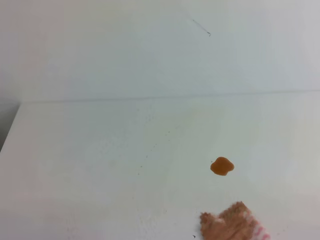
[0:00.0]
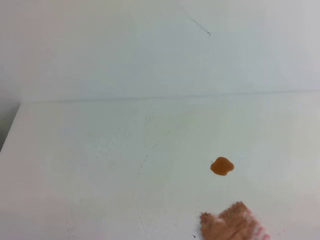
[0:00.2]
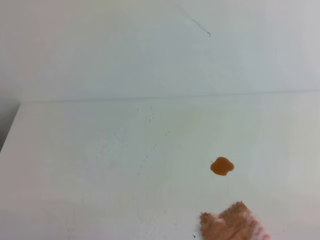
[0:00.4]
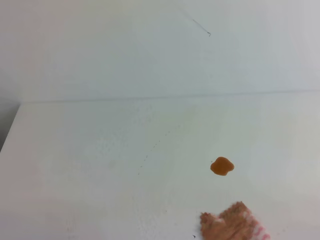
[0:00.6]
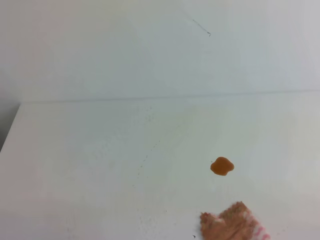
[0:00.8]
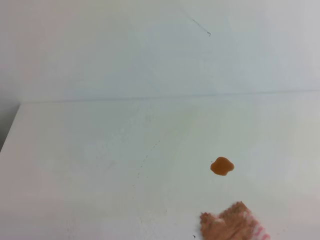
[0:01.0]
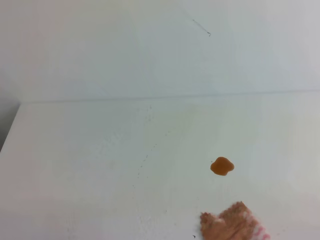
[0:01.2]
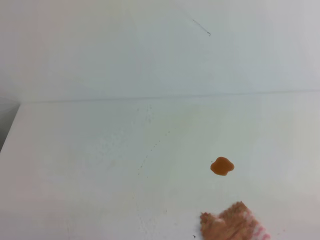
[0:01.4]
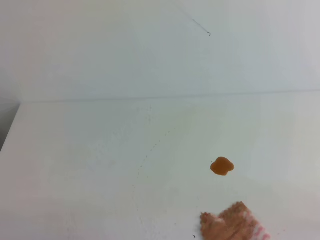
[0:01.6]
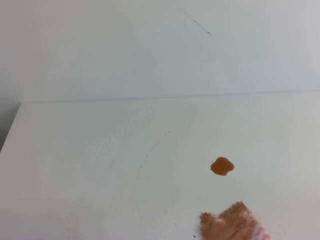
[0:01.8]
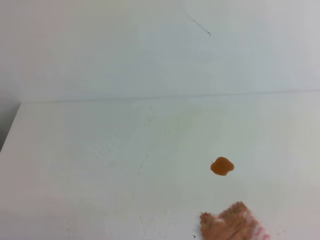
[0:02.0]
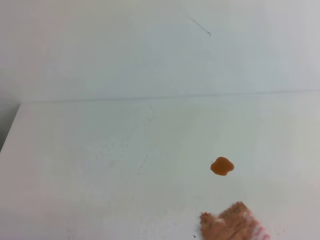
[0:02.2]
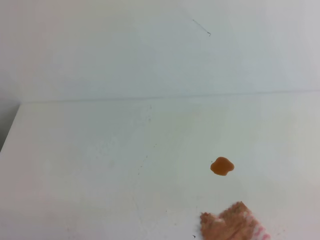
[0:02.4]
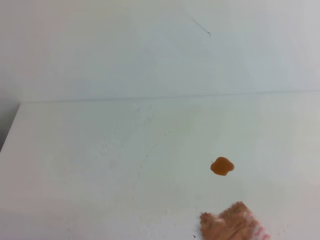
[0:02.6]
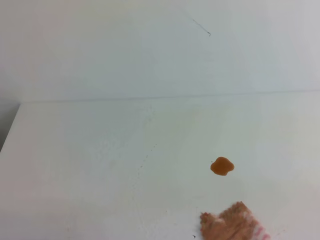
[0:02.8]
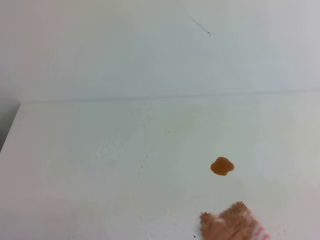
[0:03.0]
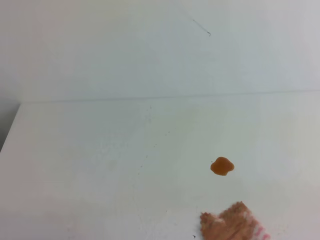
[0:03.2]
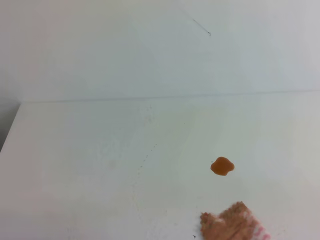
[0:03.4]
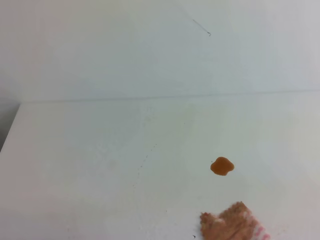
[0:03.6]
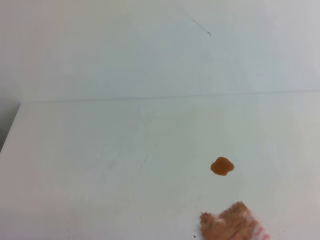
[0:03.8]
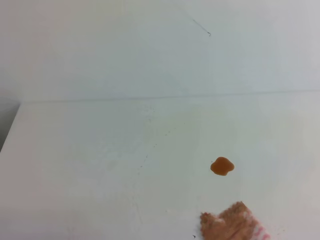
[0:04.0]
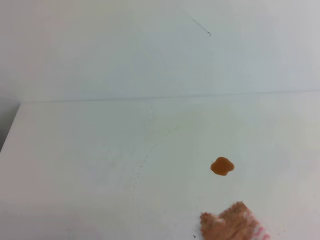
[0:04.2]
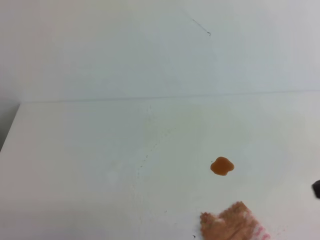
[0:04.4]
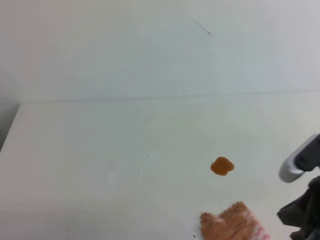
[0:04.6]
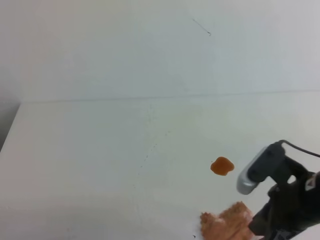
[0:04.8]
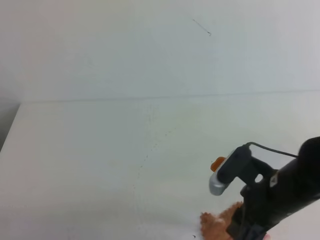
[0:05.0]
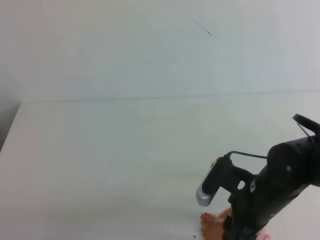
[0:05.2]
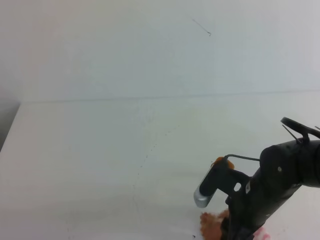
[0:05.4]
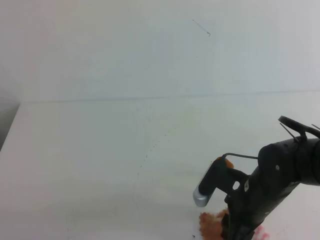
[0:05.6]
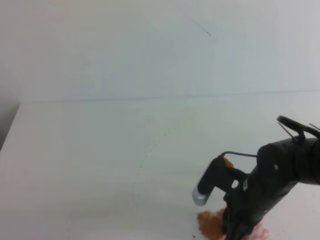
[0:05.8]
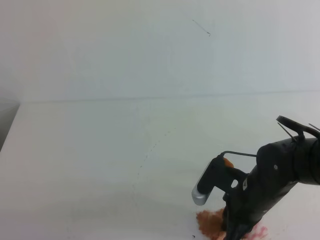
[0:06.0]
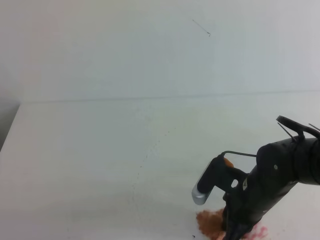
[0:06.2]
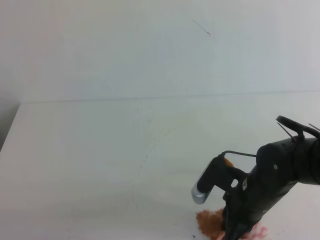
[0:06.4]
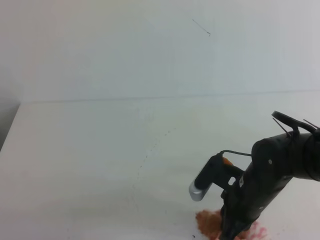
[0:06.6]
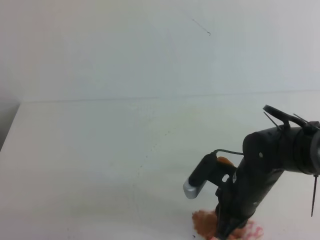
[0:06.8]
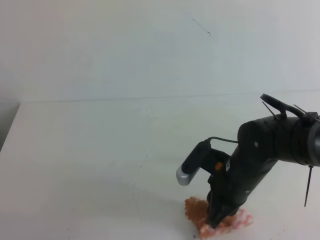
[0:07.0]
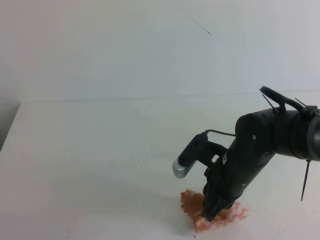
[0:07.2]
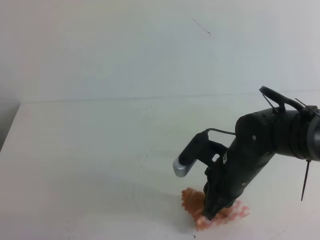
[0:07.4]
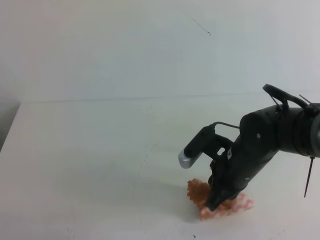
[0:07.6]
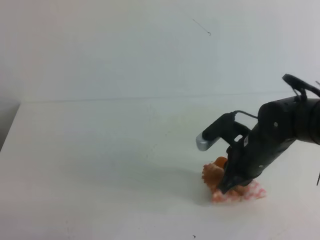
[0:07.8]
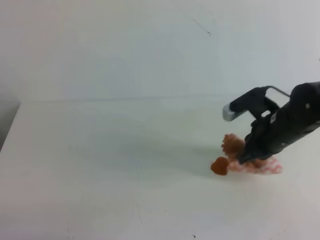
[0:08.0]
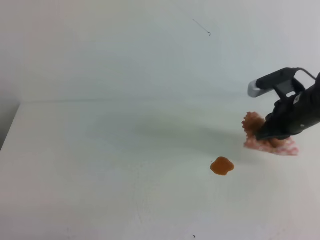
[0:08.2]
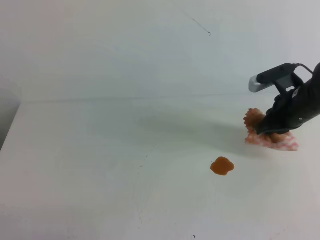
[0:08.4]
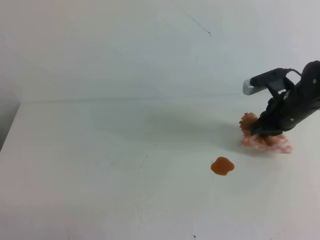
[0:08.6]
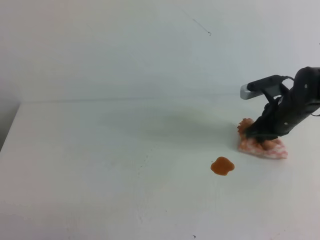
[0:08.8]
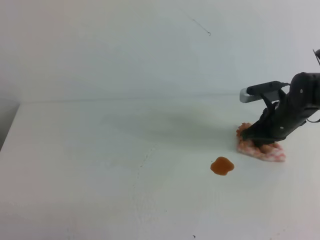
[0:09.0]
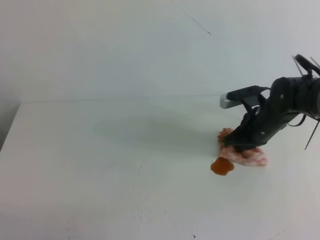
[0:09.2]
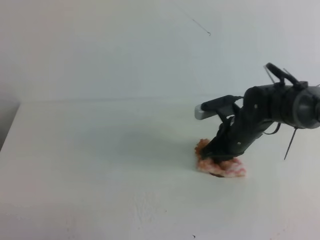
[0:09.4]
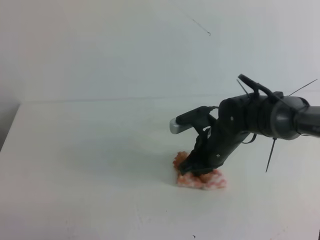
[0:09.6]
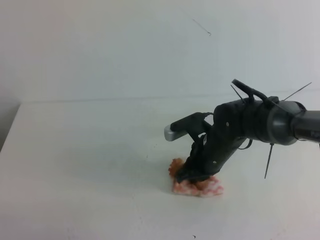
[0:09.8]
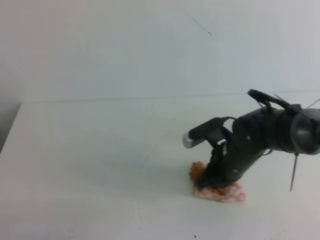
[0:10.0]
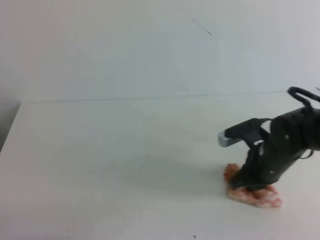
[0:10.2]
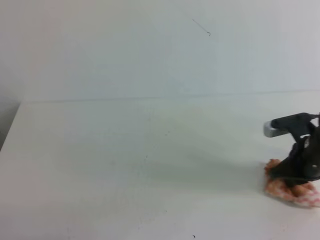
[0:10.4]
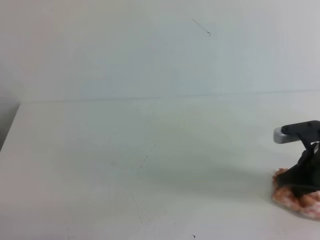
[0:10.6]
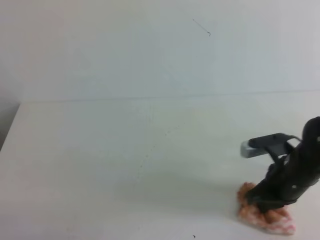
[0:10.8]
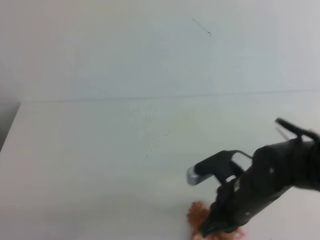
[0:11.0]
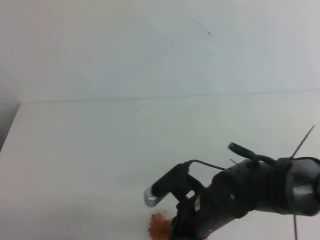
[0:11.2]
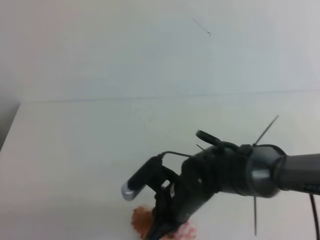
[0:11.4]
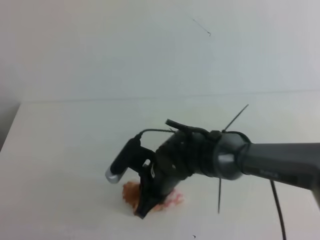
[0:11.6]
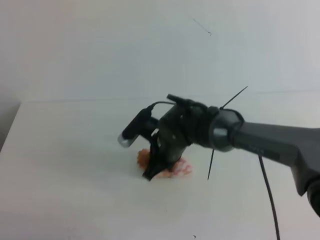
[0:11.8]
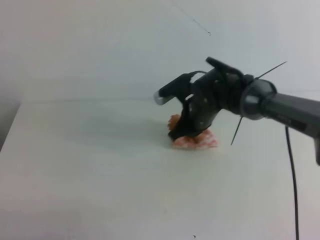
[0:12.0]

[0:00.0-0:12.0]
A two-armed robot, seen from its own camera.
0:04.4 to 0:06.0: The right gripper is displaced downward, to the left and forward by about 25 cm, and opens, then closes again.
0:06.0 to 0:07.6: The right gripper moves approximately 5 cm.
0:07.6 to 0:09.0: The right gripper moves forward and to the right, some 15 cm.
0:09.0 to 0:10.4: The right gripper travels backward by some 10 cm, and reaches about 15 cm to the left, then returns.
0:10.4 to 0:12.0: The right gripper moves to the left and forward, roughly 20 cm.

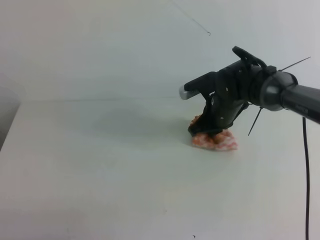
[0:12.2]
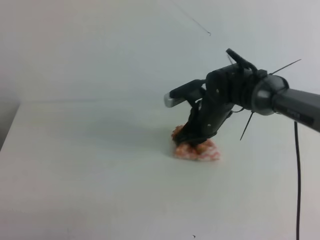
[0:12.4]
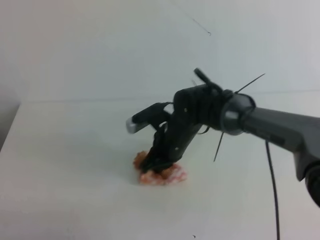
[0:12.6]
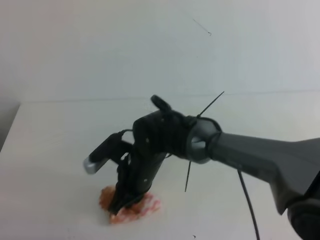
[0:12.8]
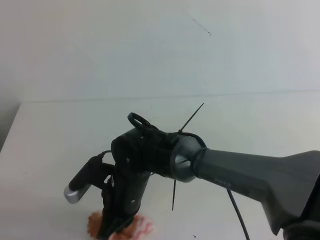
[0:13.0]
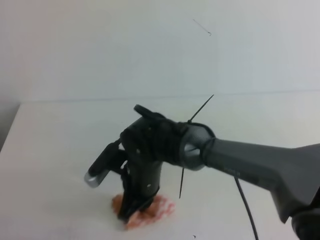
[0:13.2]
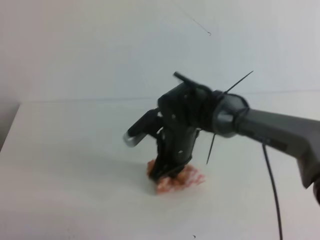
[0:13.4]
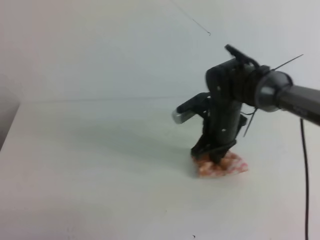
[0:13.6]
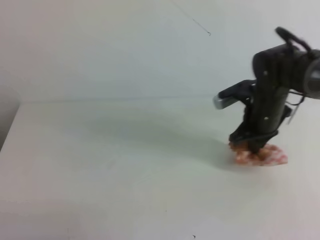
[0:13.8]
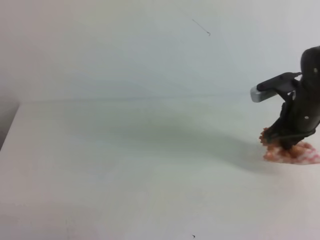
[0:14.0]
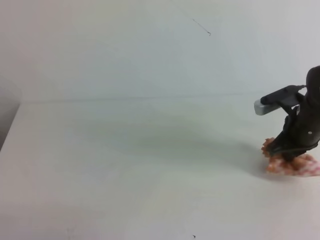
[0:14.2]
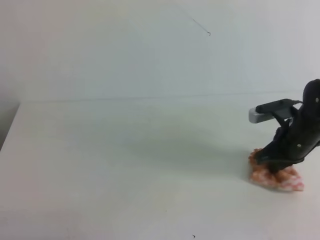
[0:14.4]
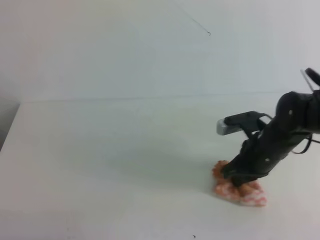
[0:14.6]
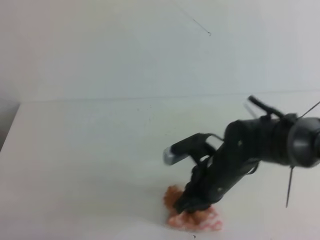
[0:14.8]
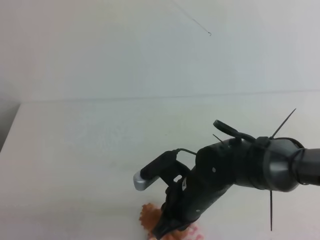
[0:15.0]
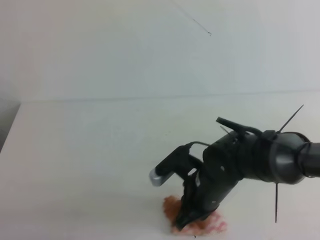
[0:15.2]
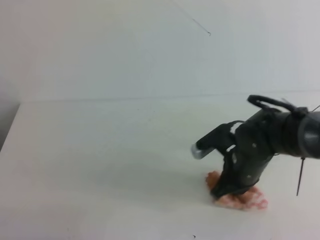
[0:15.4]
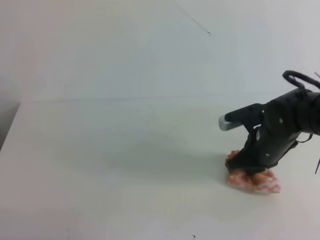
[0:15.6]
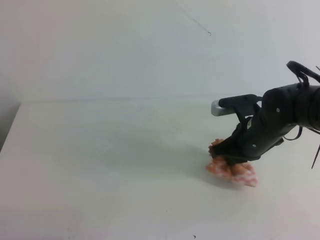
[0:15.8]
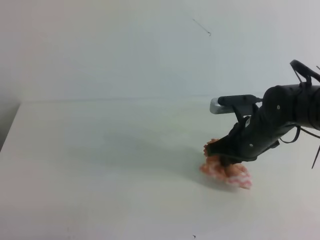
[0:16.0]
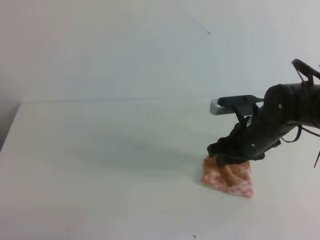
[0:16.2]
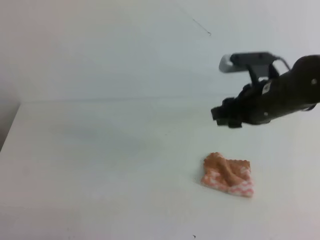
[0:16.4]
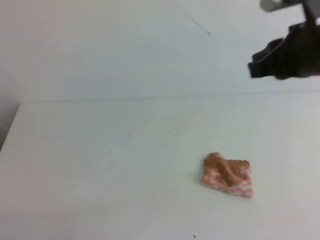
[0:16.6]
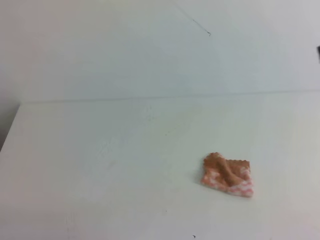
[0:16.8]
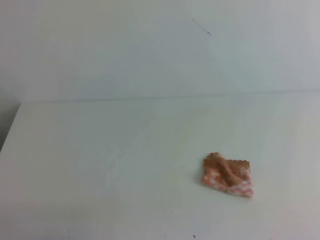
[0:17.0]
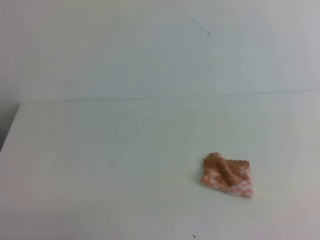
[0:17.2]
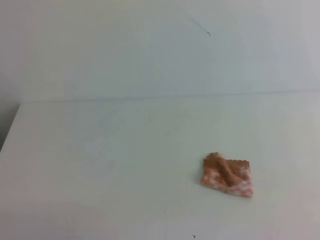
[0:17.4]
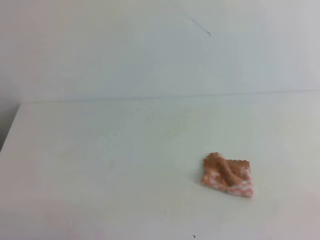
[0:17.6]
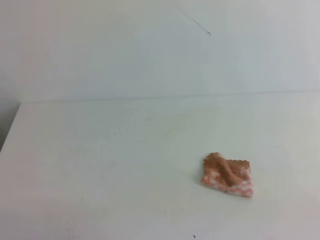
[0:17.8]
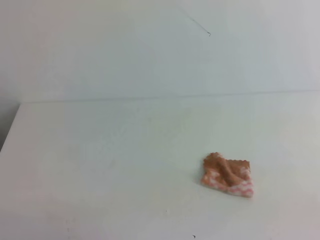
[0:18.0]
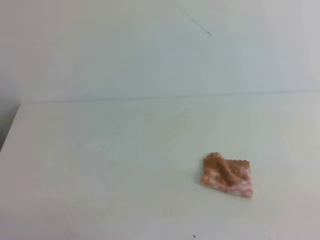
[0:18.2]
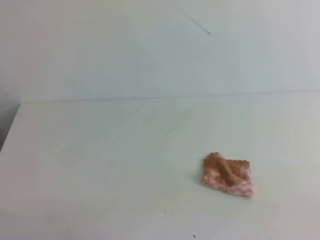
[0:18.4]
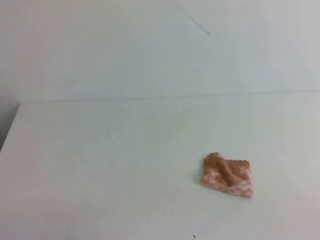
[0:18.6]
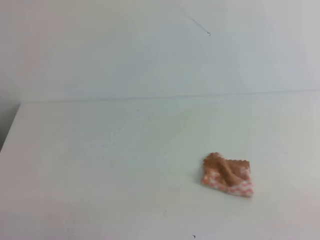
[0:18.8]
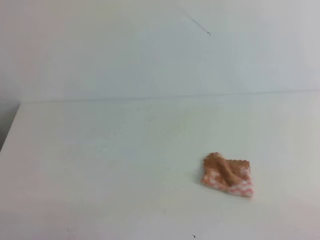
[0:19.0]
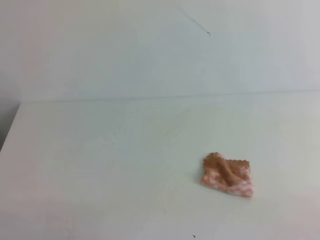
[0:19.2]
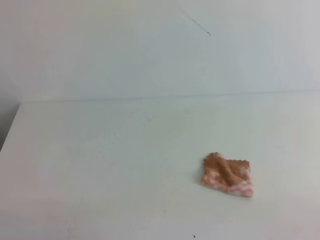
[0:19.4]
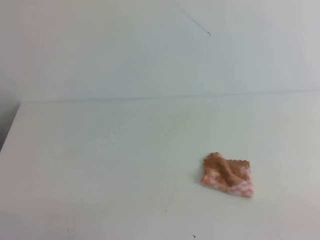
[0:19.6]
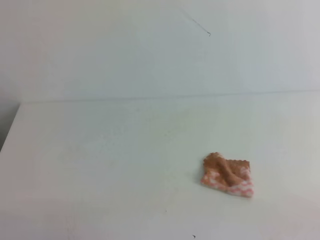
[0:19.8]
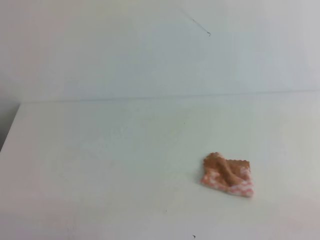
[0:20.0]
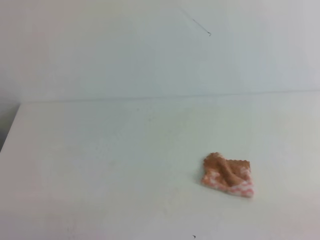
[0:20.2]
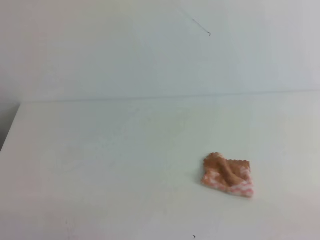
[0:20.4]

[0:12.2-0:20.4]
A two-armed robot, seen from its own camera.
0:12.2 to 0:13.8: The right gripper shifts approximately 10 cm to the right.
0:13.8 to 0:15.4: The right gripper goes left and right, roughly 20 cm each way, reversing 2 times.
0:15.4 to 0:17.2: The right gripper is displaced upward, backward and to the right by roughly 35 cm, and opens and closes again.
